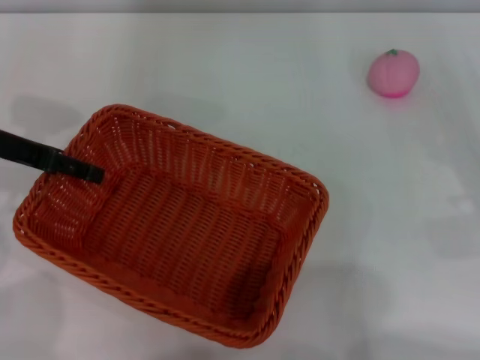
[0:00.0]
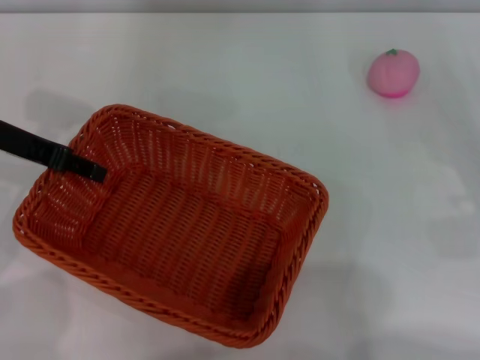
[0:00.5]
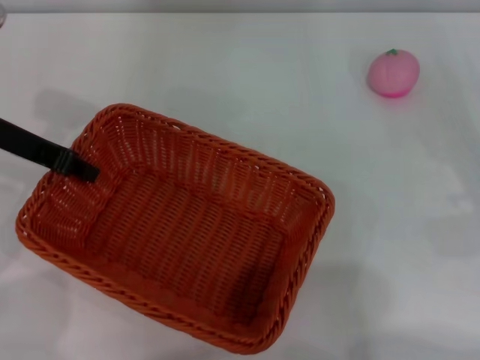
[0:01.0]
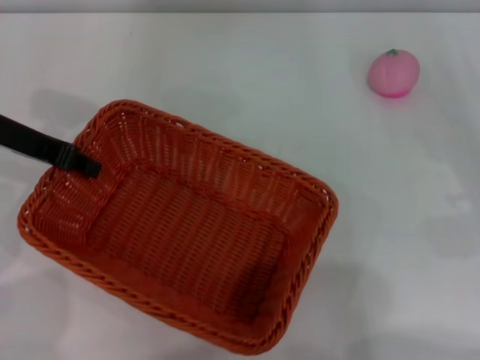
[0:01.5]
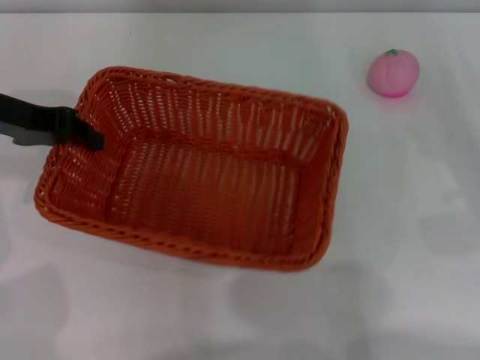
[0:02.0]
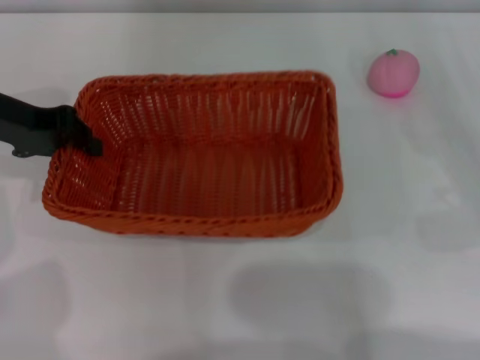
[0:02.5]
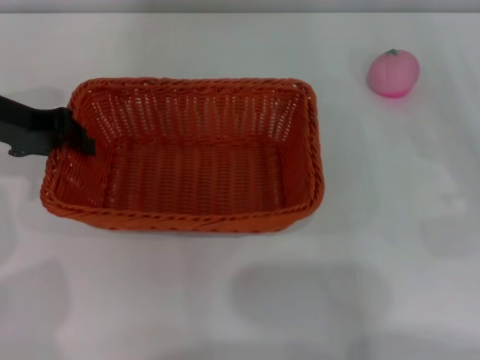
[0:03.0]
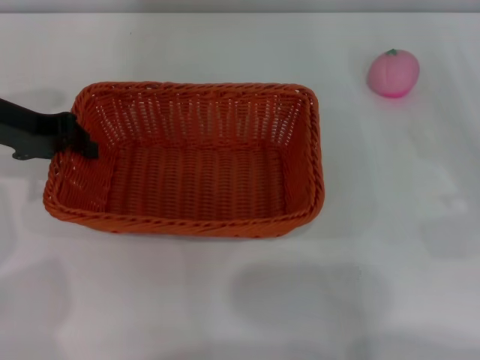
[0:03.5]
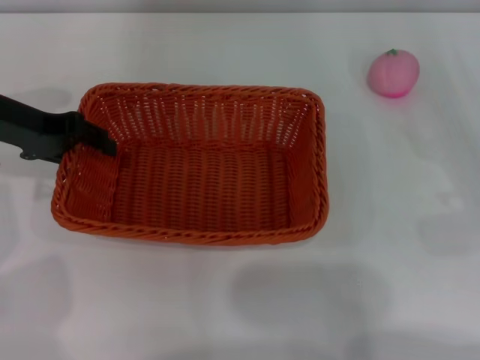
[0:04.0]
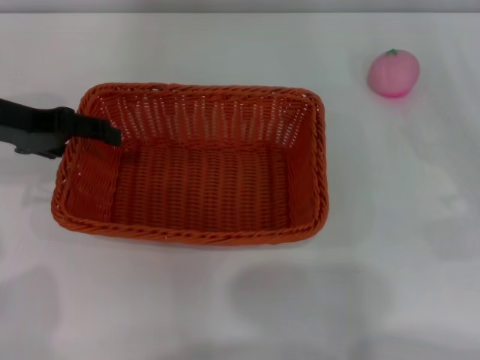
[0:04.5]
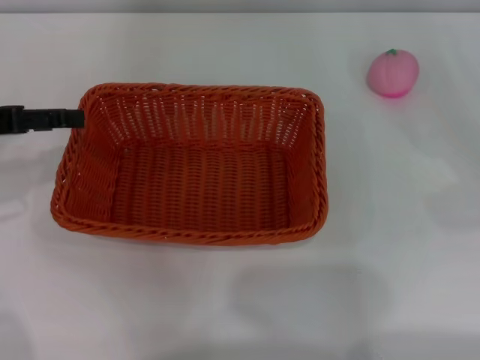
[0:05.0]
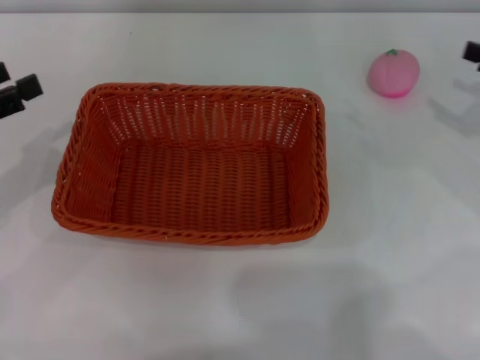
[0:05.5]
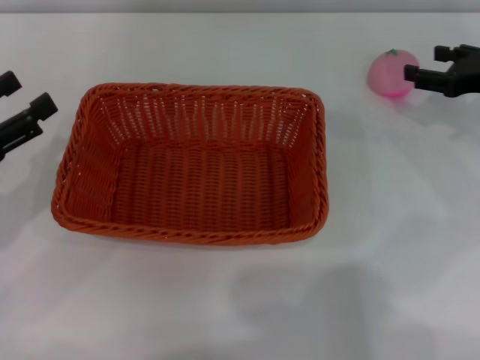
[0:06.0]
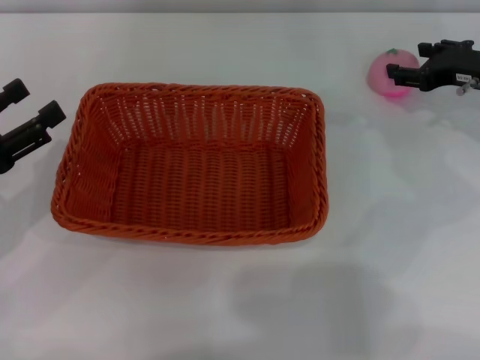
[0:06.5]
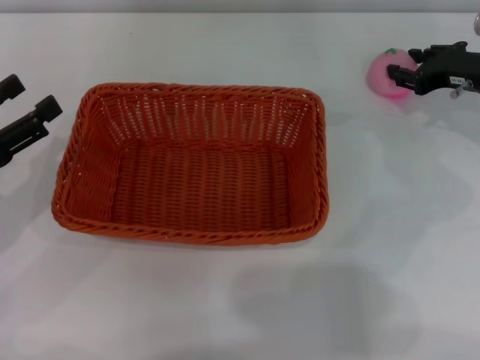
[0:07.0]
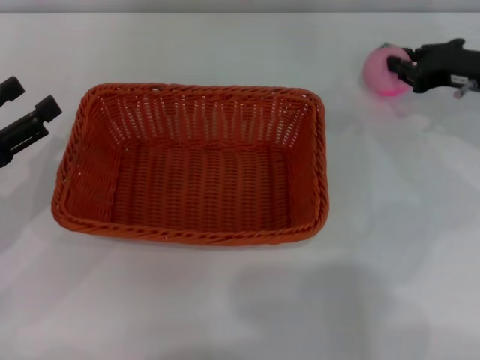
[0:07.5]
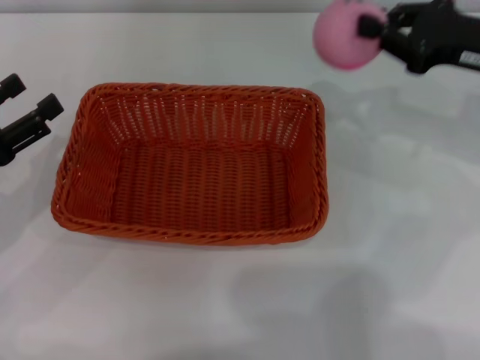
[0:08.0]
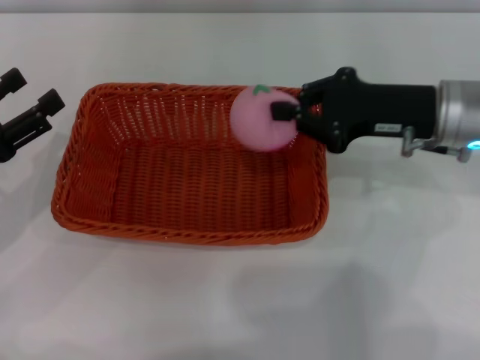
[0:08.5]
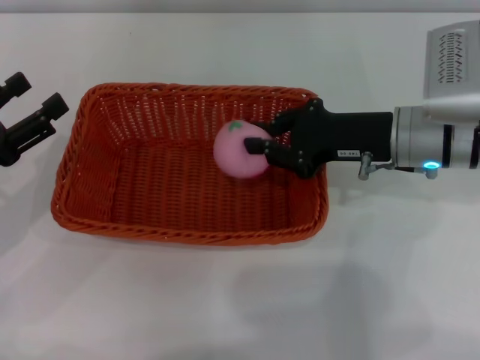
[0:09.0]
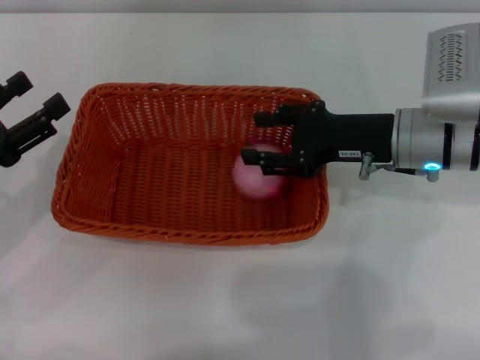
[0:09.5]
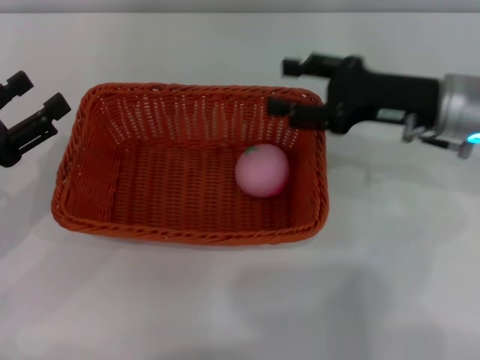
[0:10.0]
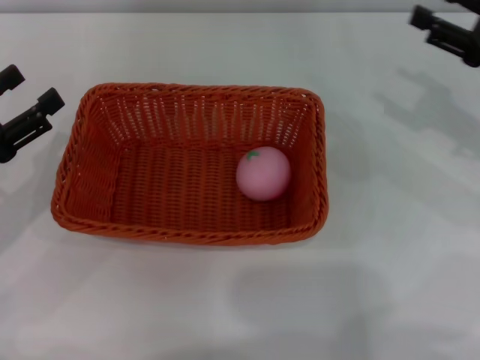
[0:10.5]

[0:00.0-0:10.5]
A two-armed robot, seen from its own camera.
Step, 0:01.5 to 0:05.0: Place the light basket in the center of view with the right gripper.
Step, 0:05.5 to 0:07.5: Pick up the peach with the left gripper.
0:00.0 to 0:02.0: The left gripper closes.
0:02.0 to 0:04.0: The grippers move only a little.
0:04.0 to 0:06.5: The right gripper is displaced forward by approximately 15 cm; the left gripper travels backward, to the left and downward by some 15 cm, and opens up.
0:06.5 to 0:08.5: The right gripper goes roughly 10 cm to the left and backward, and closes up.
0:08.5 to 0:10.5: The right gripper shifts some 10 cm to the right, and opens up.

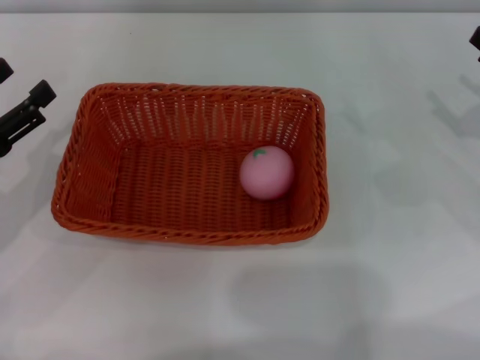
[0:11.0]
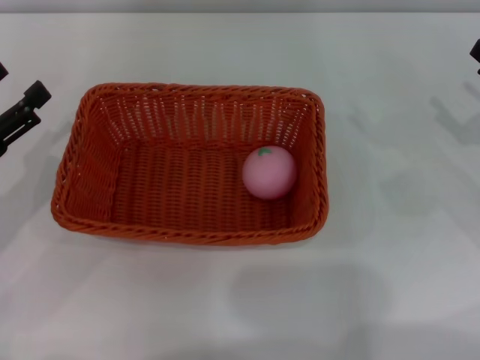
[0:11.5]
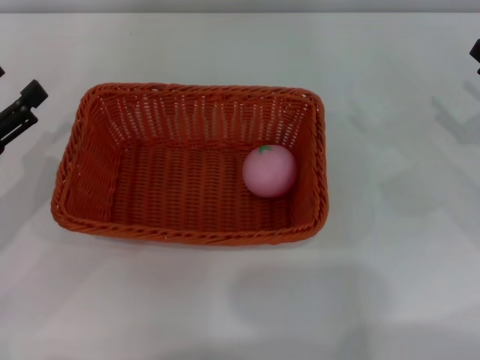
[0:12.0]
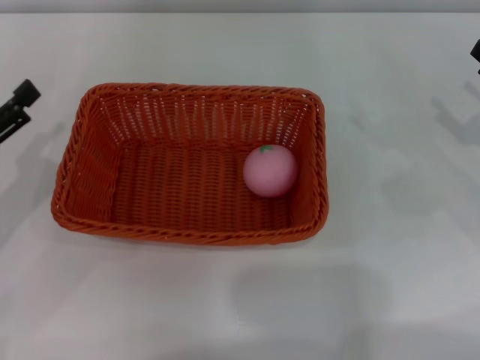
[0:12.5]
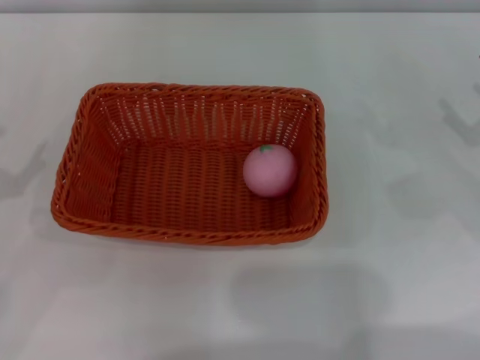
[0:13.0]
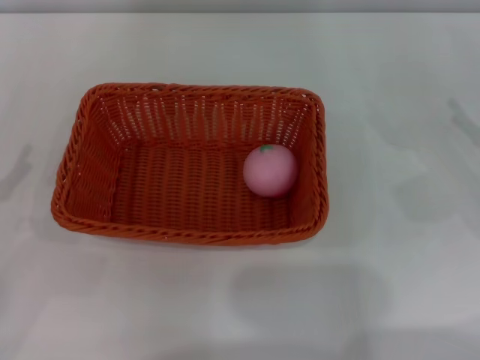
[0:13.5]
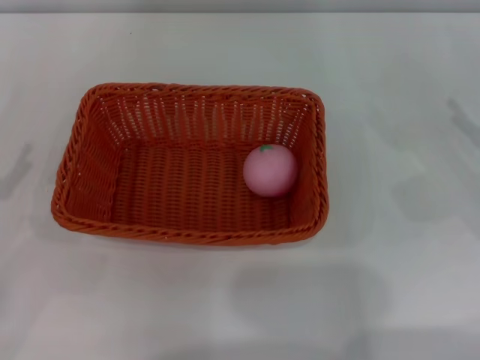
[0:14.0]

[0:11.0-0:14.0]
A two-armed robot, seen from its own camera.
0:11.0 to 0:12.5: Neither gripper changes place.
0:12.5 to 0:14.0: The left gripper shifts by roughly 5 cm.
